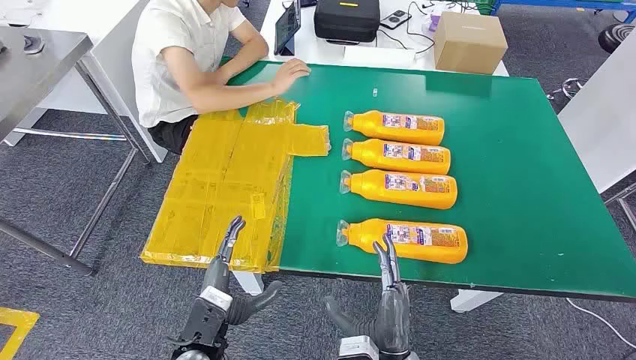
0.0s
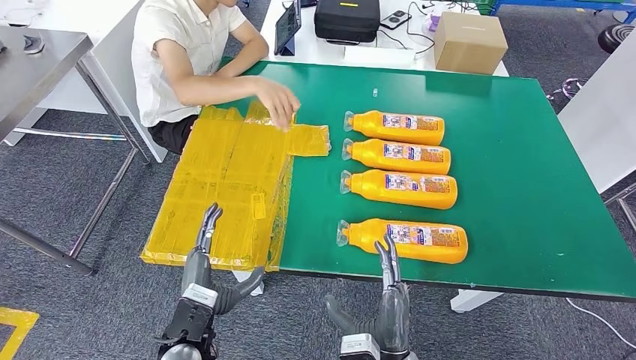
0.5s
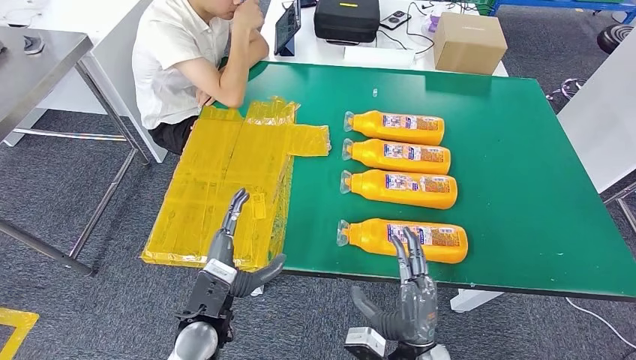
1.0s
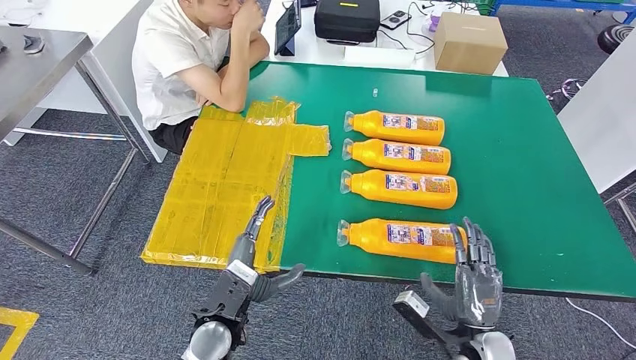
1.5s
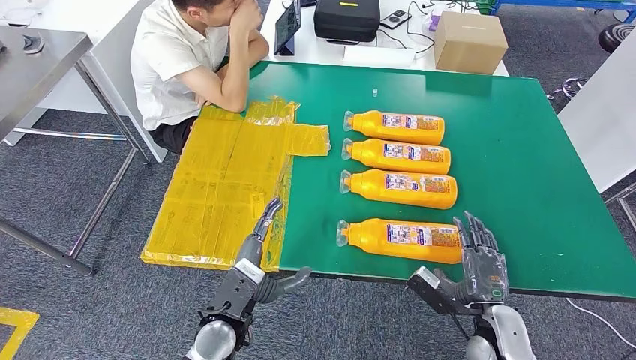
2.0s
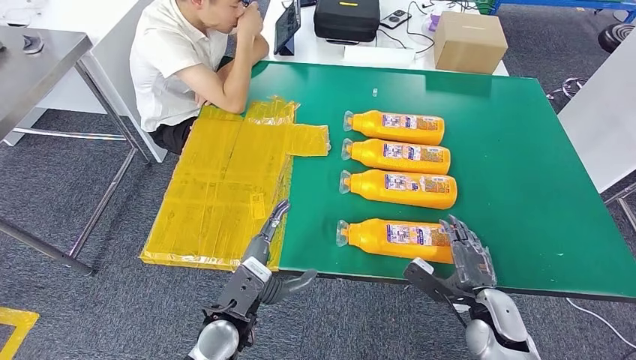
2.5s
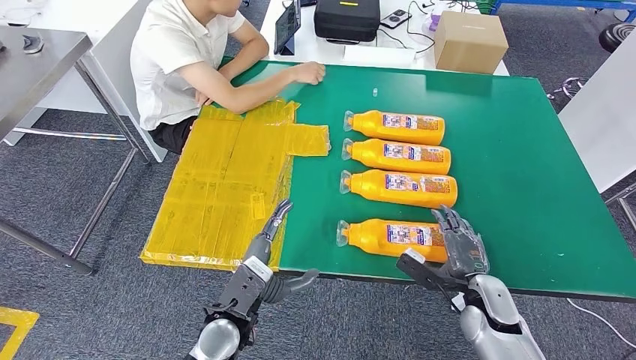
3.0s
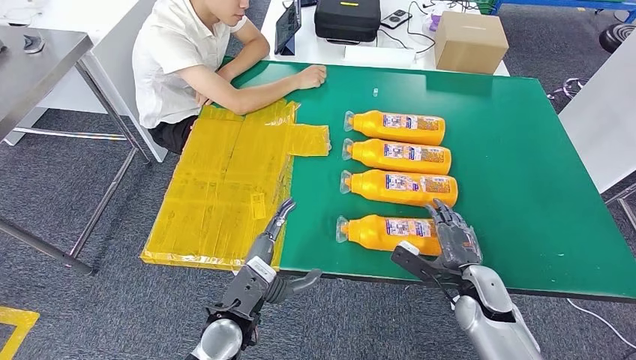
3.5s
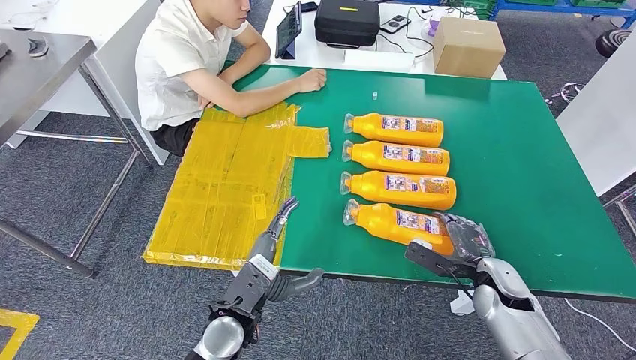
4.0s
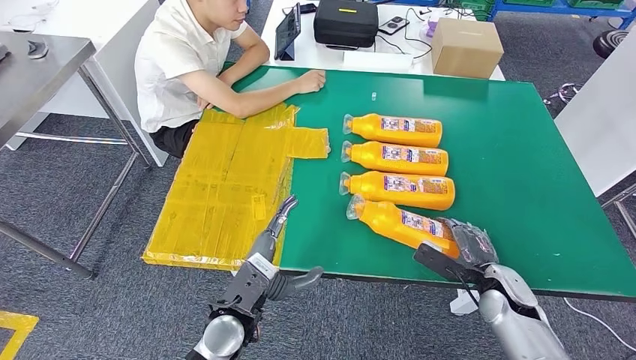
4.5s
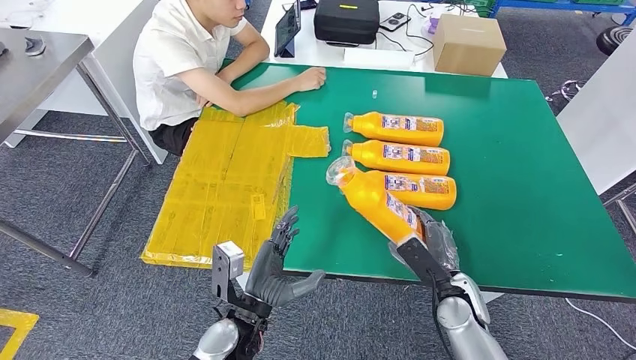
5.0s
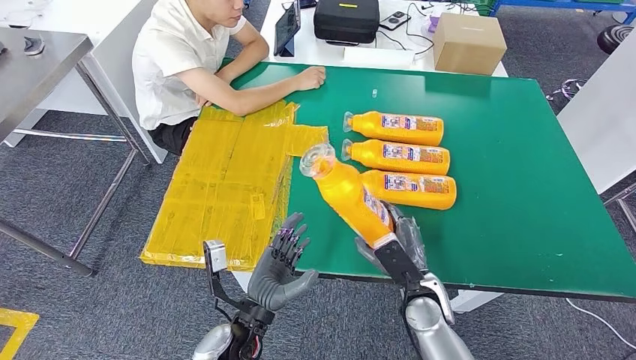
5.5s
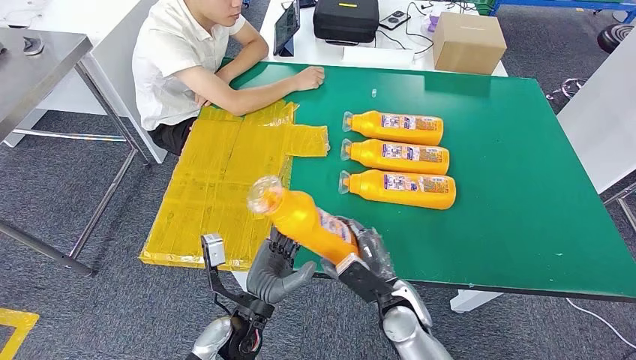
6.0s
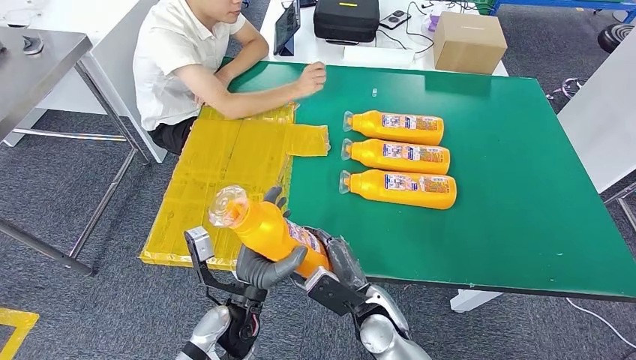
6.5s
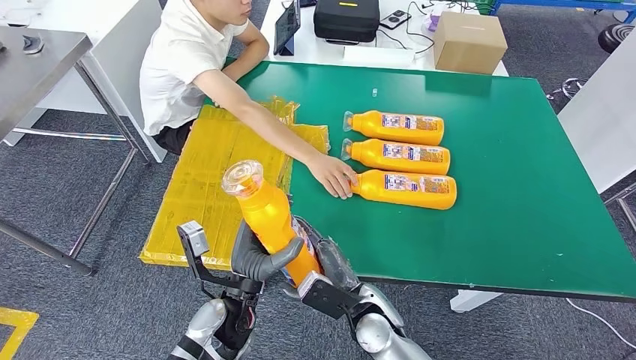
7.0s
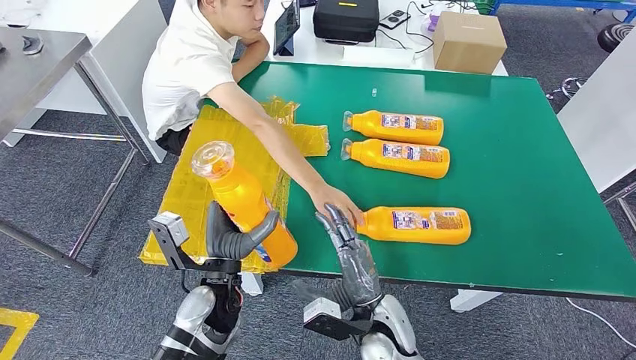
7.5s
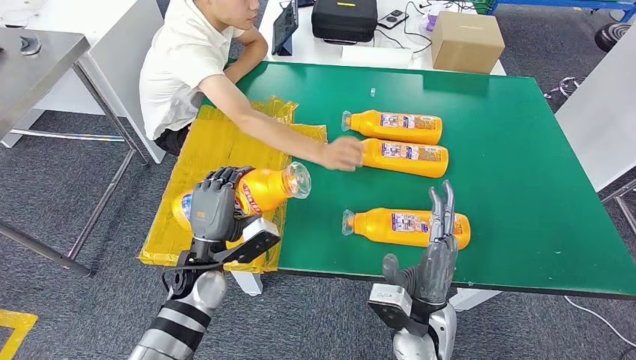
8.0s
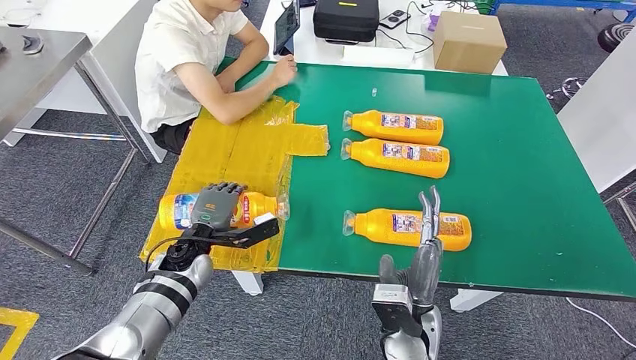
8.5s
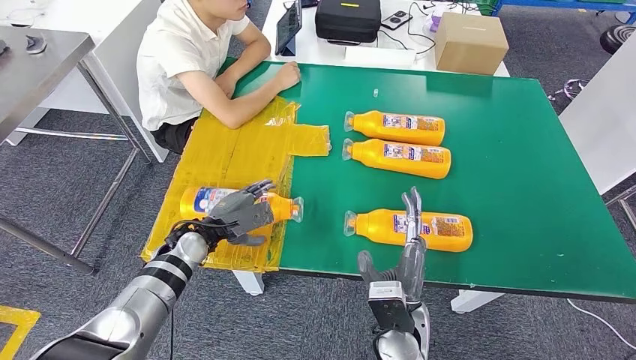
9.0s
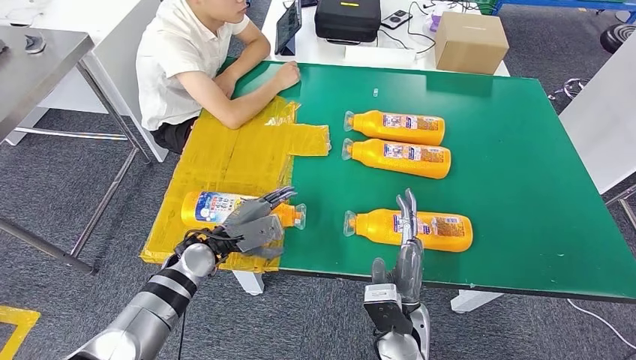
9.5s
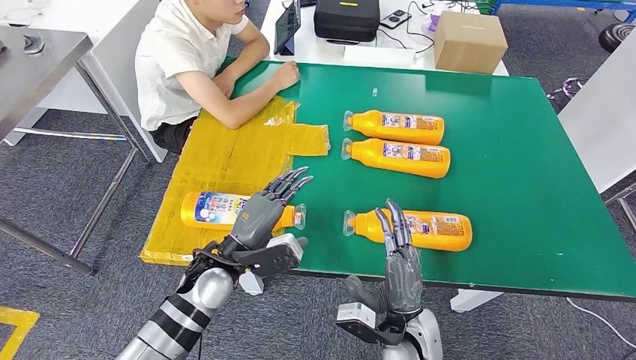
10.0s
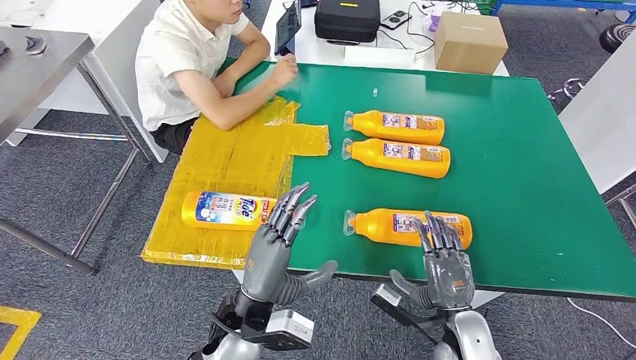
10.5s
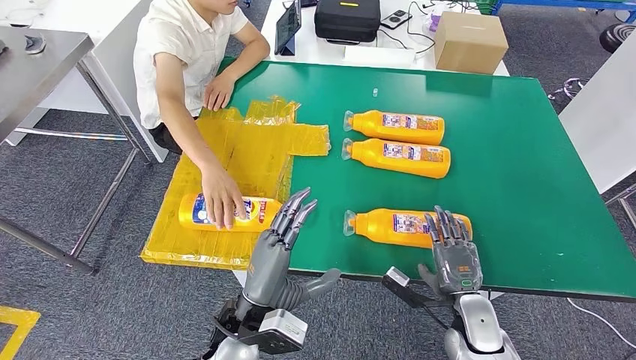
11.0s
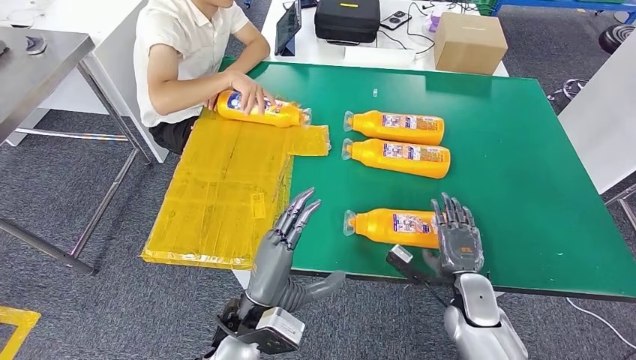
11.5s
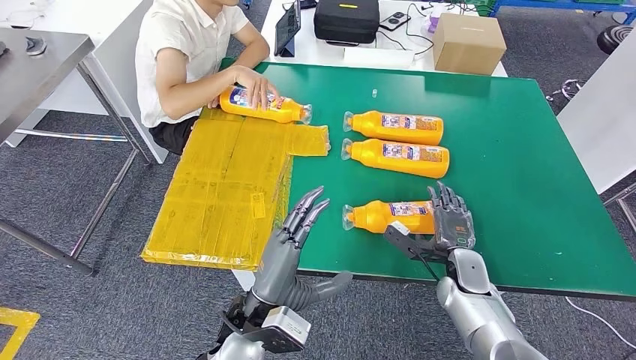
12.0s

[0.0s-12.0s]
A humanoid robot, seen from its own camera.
Step, 0.0s to 7.5s: Take the fast-moving consumer goods bottle from the table.
Step, 8.5s to 10.0s: Flip the fast-moving consumer goods bottle to the front side.

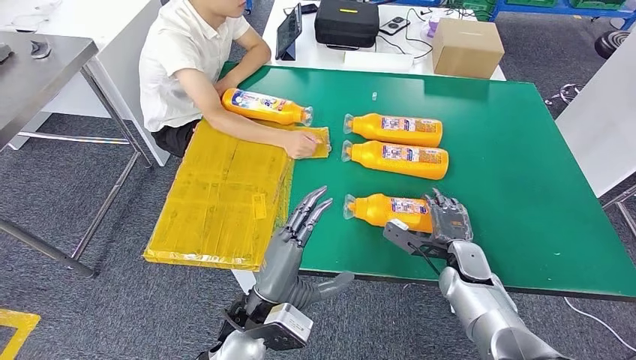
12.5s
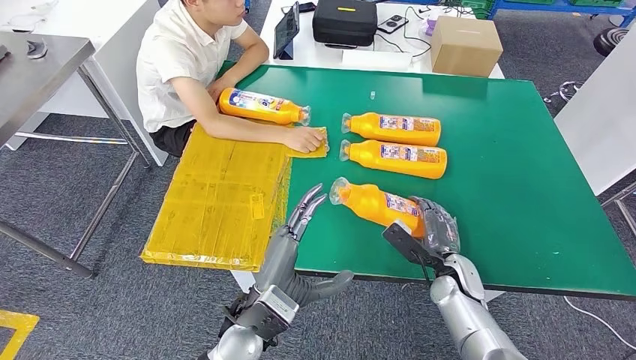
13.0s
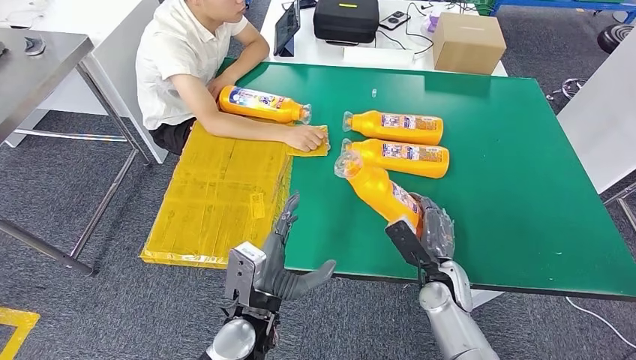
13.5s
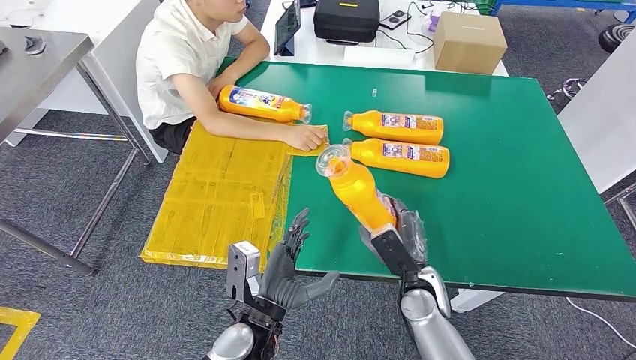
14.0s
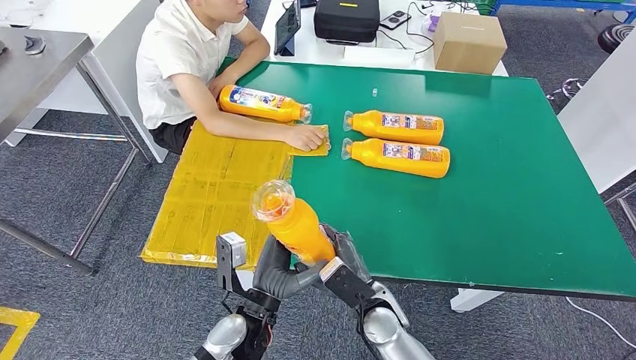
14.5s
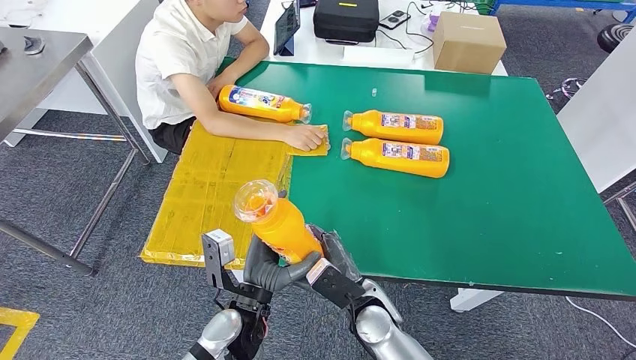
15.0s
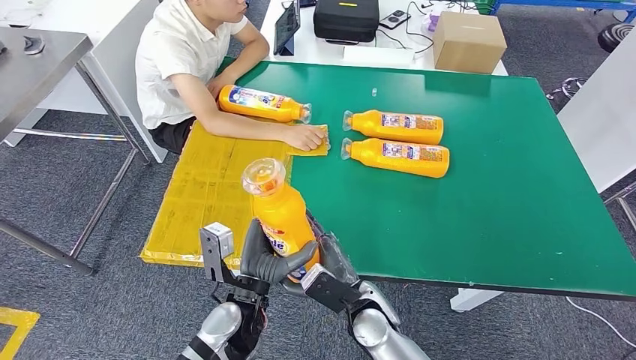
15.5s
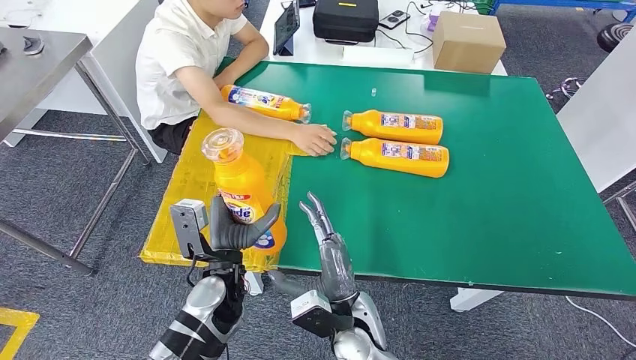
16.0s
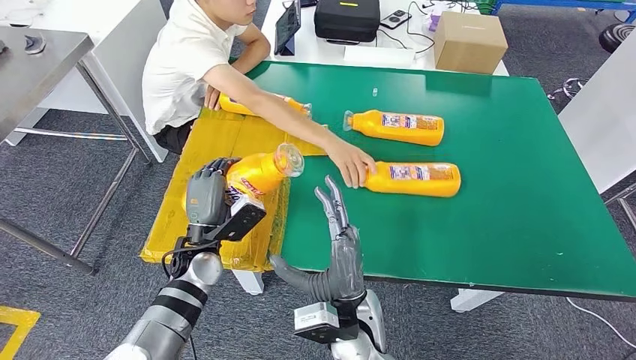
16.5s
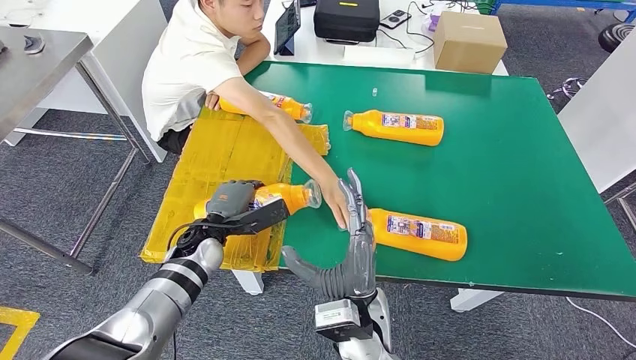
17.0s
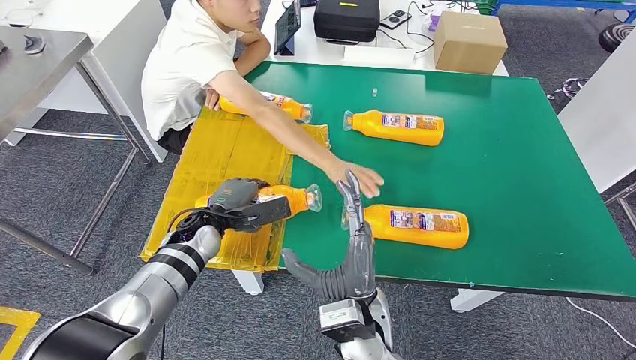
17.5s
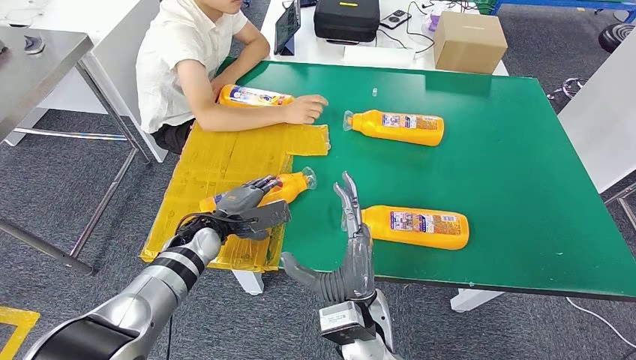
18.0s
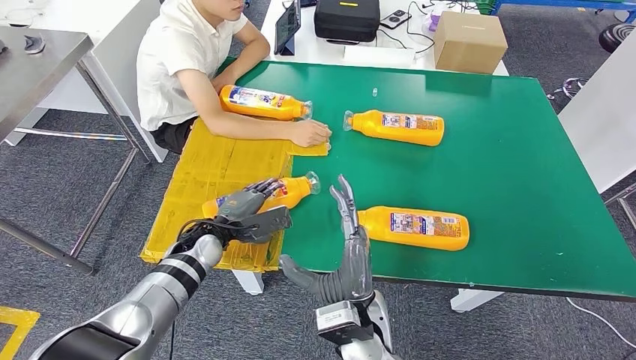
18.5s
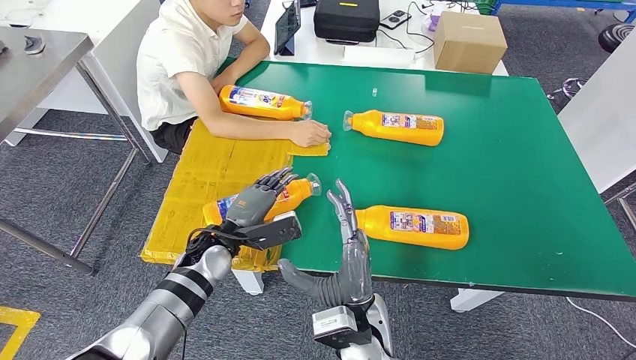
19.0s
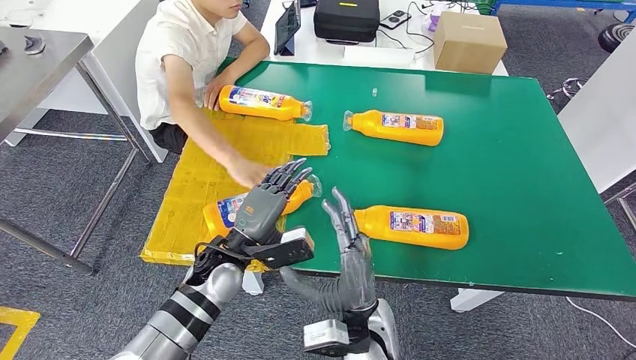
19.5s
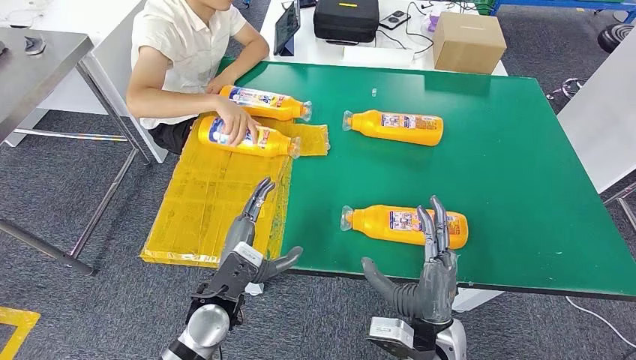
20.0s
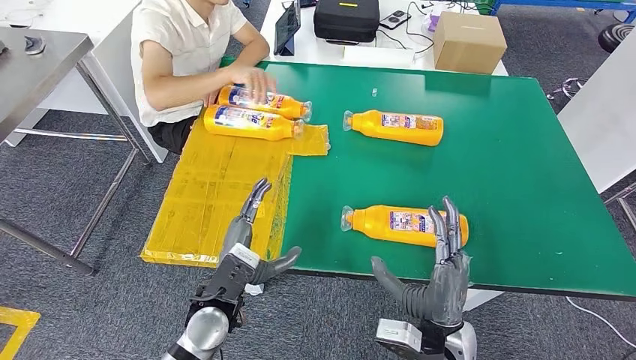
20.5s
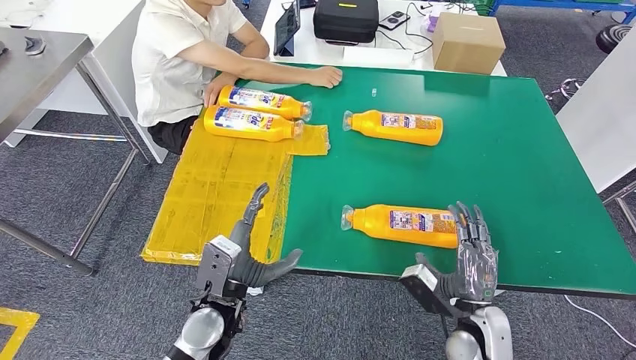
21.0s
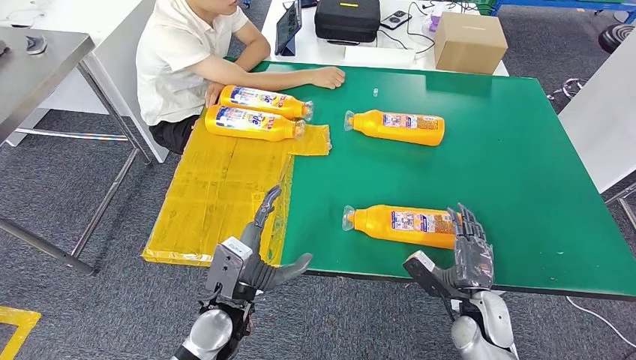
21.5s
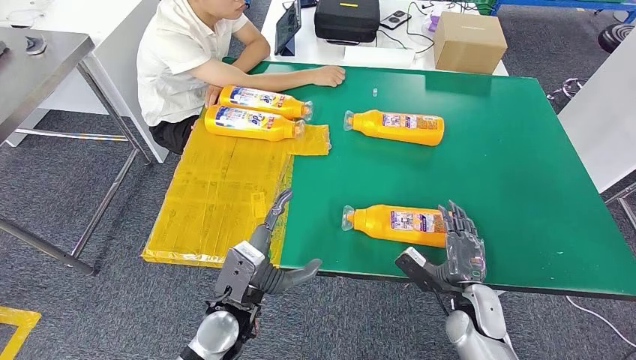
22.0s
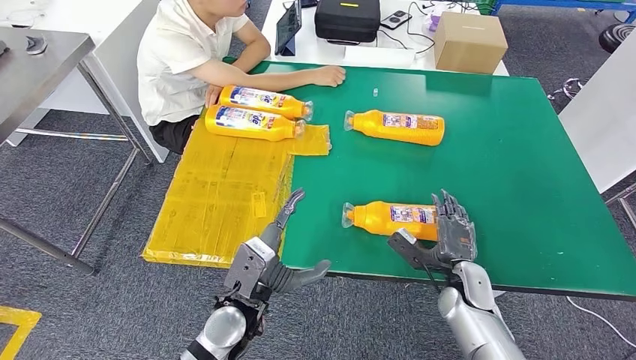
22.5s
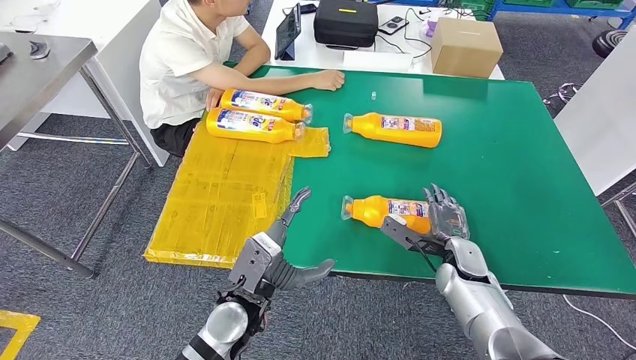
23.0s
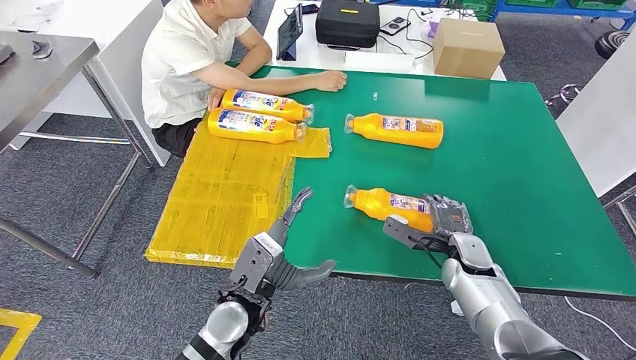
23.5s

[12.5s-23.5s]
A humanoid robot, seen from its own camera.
Step, 14.5s to 18.0s: Flip the fast-moving consumer goods bottle to the front side.
14.5s to 16.0s: The left hand shifts some 5 cm forward. The right hand shifts by some 5 cm.
18.0s to 20.0s: The left hand moves backward and to the right, some 15 cm, while the right hand heads to the right, covering approximately 10 cm.
20.0s to 21.5s: The right hand is displaced to the right, downward and forward by about 15 cm.
